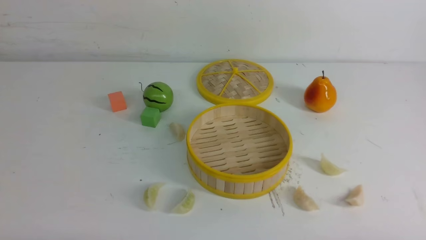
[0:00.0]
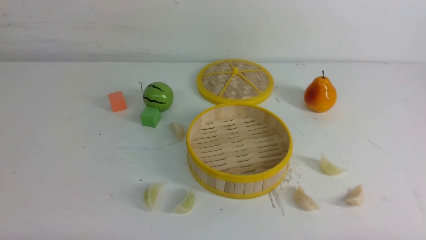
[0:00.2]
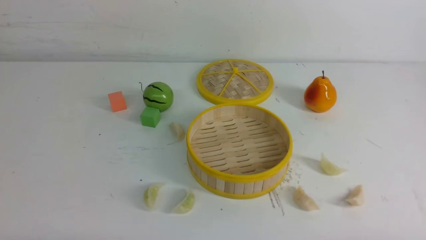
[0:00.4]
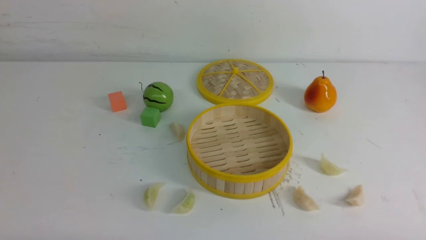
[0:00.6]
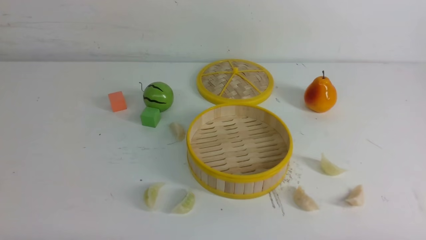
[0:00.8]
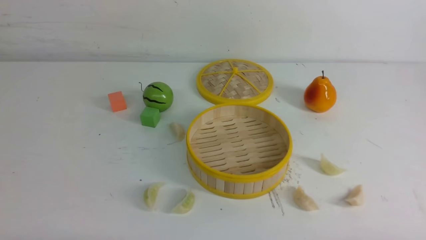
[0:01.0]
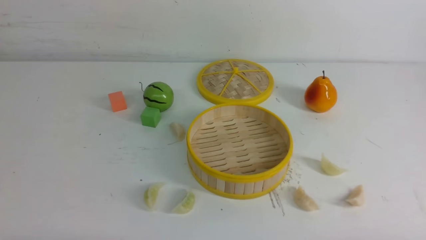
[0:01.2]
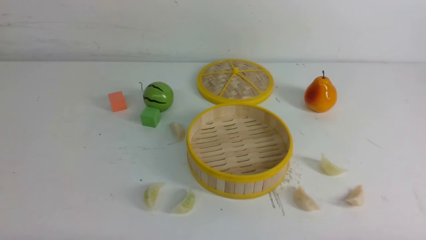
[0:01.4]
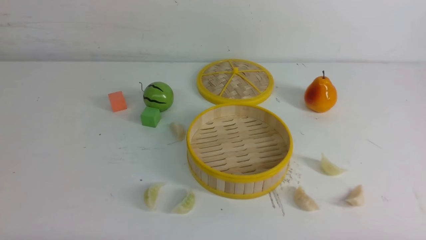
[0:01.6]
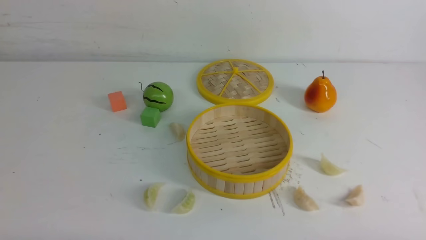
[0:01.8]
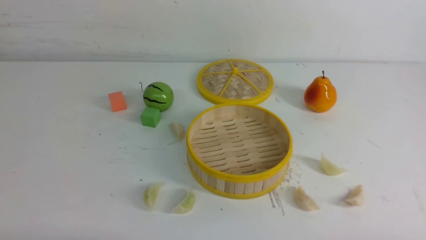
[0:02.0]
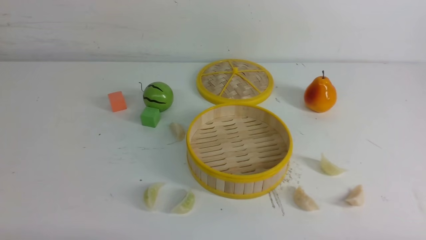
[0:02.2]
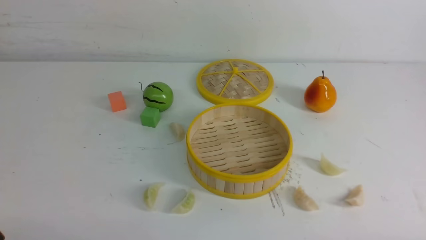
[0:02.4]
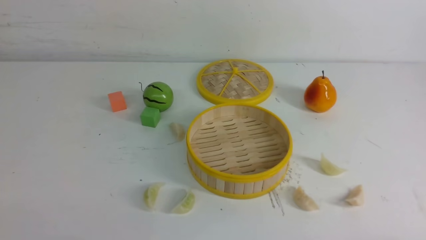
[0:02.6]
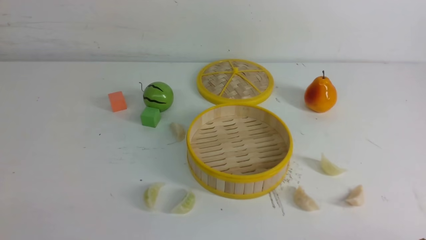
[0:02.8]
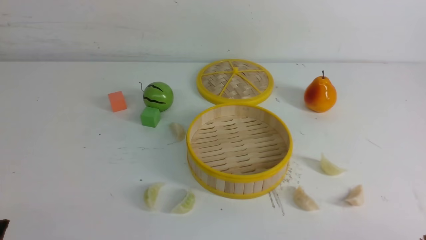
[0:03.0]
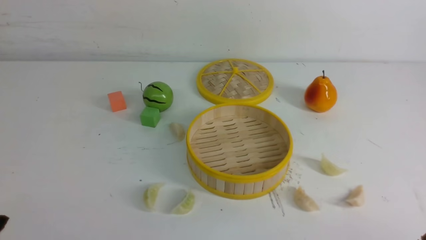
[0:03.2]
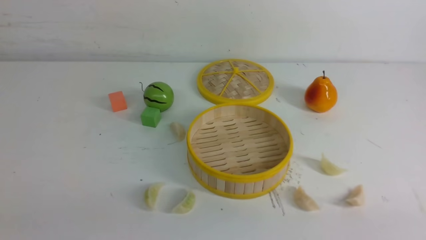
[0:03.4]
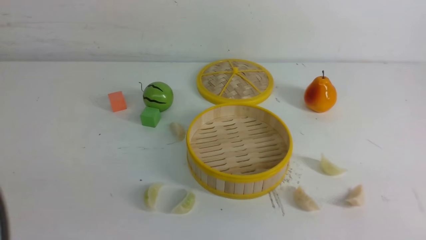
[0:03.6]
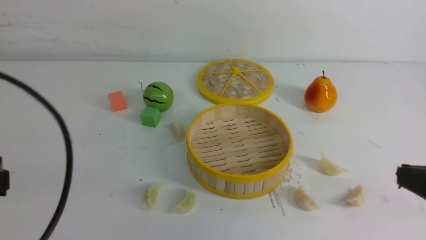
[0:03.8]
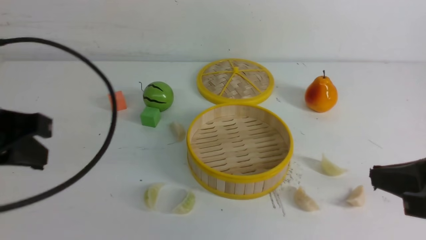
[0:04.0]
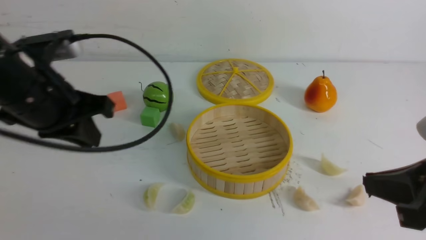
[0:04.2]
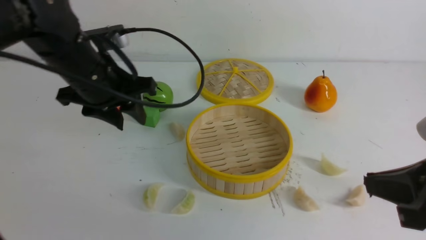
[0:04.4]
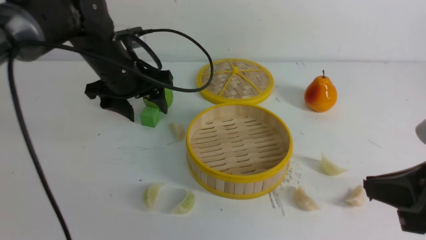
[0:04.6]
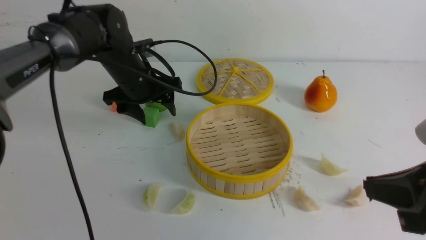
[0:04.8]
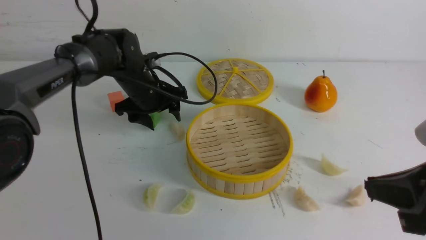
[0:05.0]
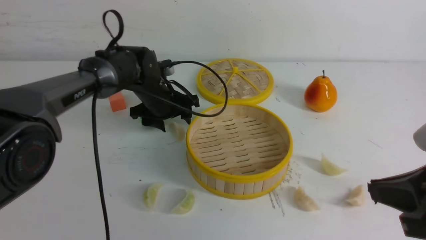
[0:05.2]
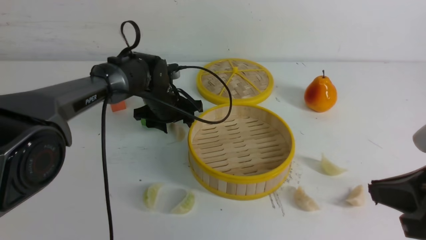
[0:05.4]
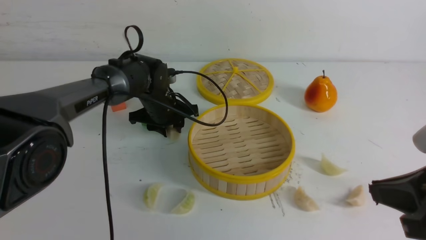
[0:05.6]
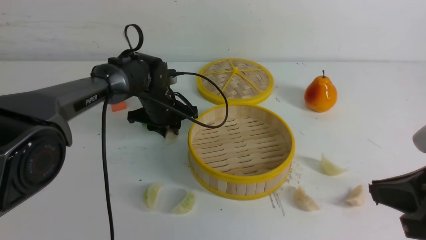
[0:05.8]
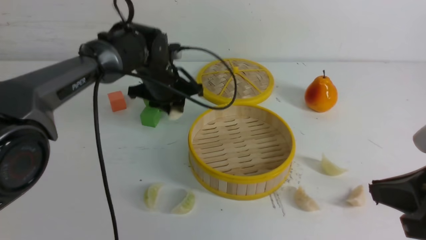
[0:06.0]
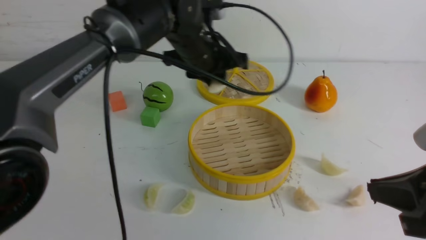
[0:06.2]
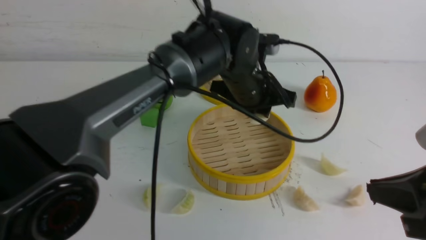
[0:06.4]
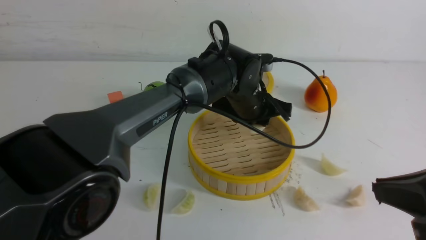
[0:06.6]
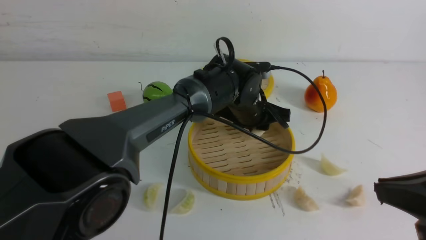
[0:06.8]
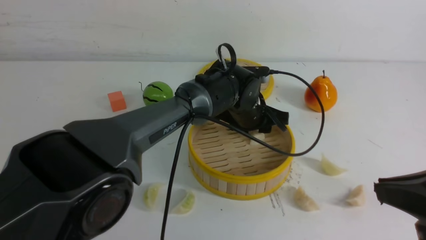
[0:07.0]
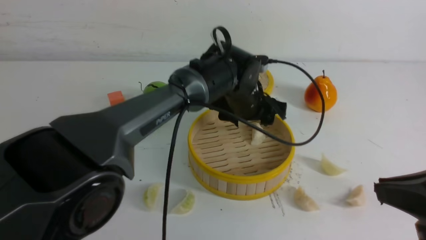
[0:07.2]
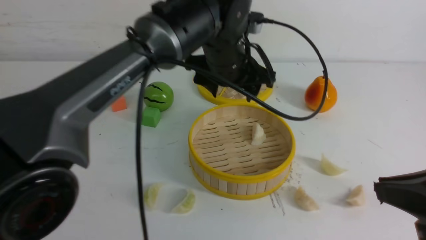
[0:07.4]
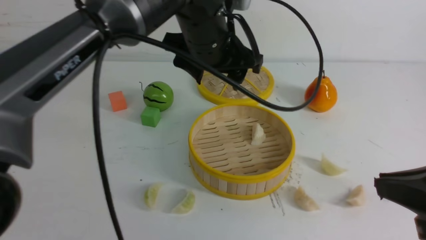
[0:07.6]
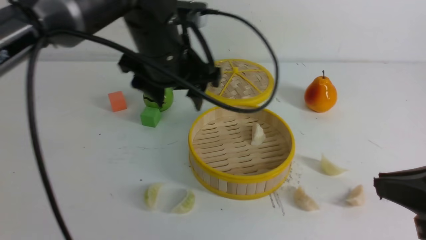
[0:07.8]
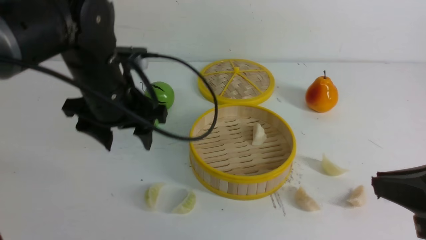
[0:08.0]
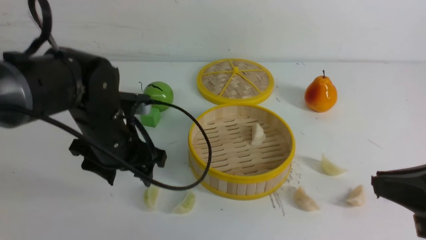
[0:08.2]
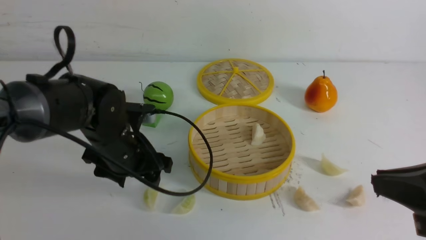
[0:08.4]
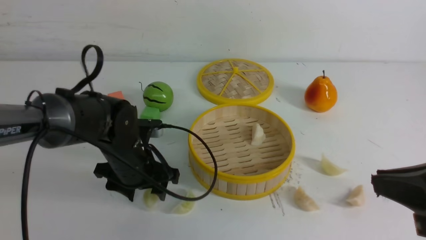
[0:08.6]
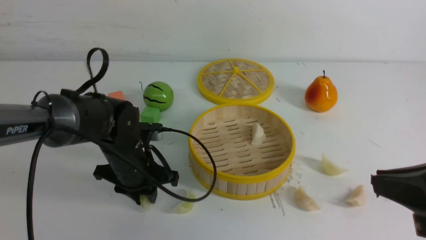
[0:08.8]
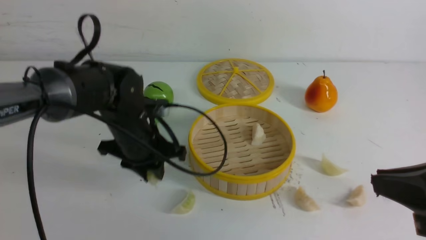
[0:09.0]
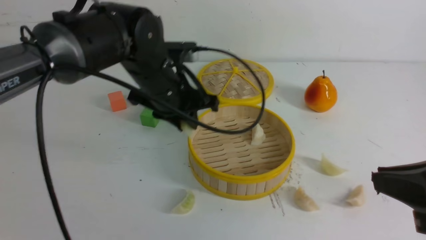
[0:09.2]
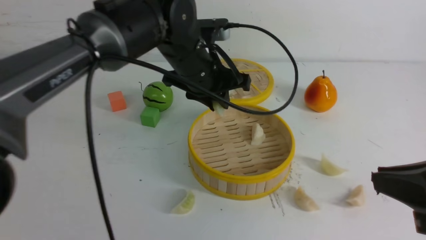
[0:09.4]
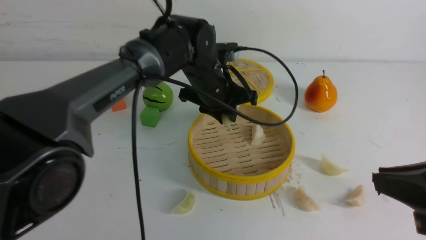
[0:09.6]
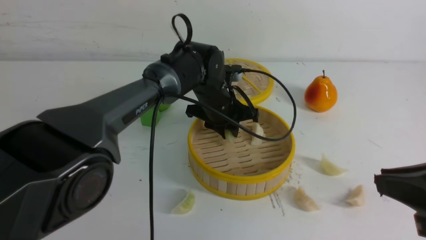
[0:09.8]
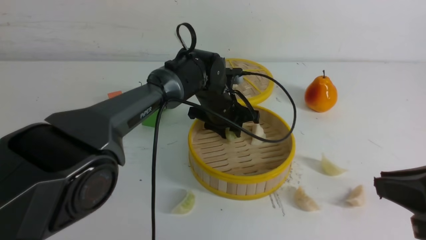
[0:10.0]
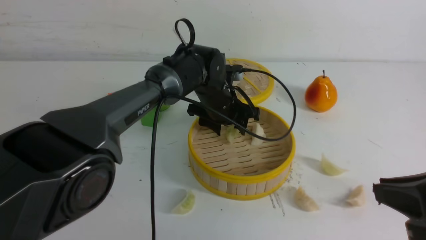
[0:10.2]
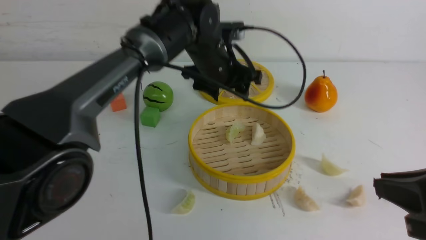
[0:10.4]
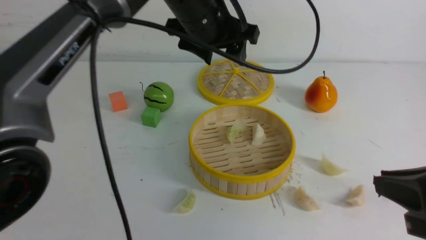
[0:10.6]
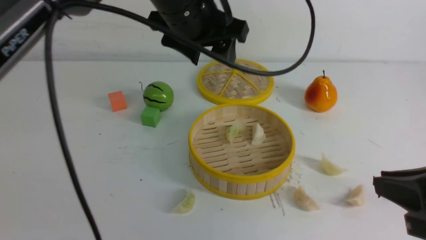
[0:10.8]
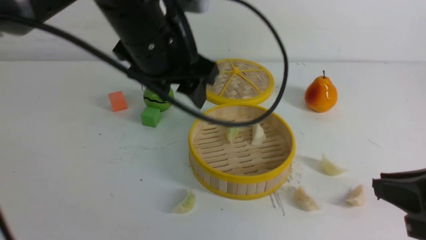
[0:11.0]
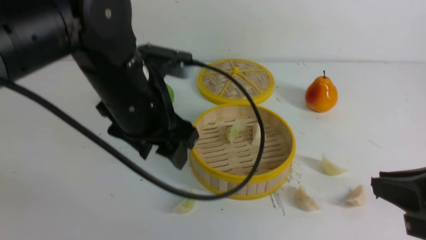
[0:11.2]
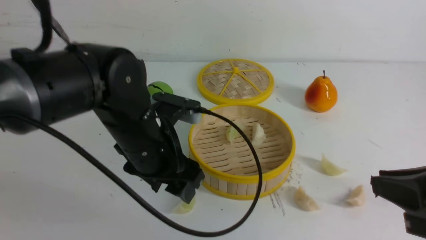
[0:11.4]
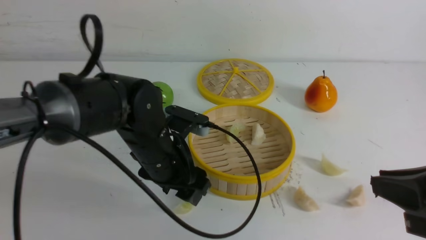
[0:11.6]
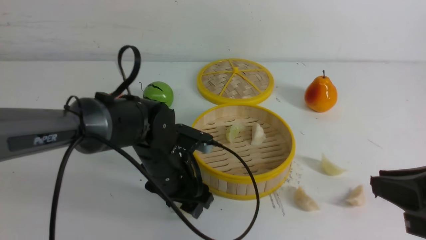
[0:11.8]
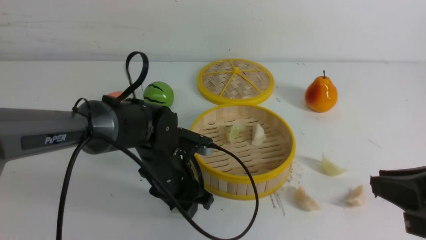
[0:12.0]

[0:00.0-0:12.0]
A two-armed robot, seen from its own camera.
Task of the whole recording: put the dumplings into the steamer on the white table.
Step, 0:00.0 to 0:05.8: use the left arm to grab a dumpling.
Step, 0:06.0 to 0:07.0: use the left arm to put the dumpling into the steamer.
Step, 0:07.2 to 0:08.8: use the left arm to grab a dumpling.
Step, 0:09.0 to 0:10.0: use the left arm to put the dumpling into the steamer.
0:00.0 to 0:01.6: The two grippers keep their place.
0:03.0 to 0:04.4: The left gripper moves forward, approximately 30 cm, and closes, then reopens; the right gripper is displaced upward and forward by some 15 cm, and closes its fingers.
0:04.4 to 0:06.0: The left gripper shifts some 15 cm forward, to the right and downward, and opens, then closes again.
0:06.0 to 0:07.6: The left gripper moves up and down over roughly 15 cm, changing direction 2 times, and opens up.
0:07.6 to 0:09.0: The left gripper shifts approximately 15 cm downward and to the left, and closes up.
0:09.0 to 0:10.4: The left gripper heads to the right, upward and forward, covering some 15 cm, and opens its fingers.
0:10.4 to 0:12.0: The left gripper moves downward, backward and to the left, roughly 20 cm.

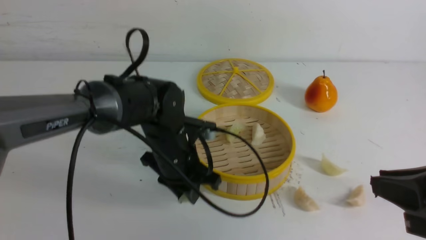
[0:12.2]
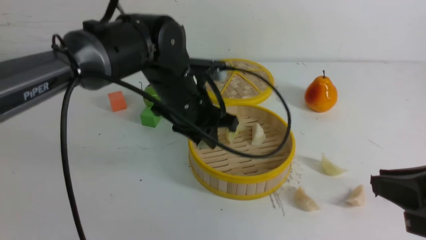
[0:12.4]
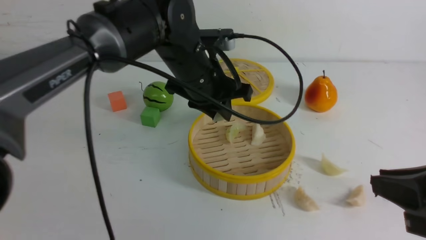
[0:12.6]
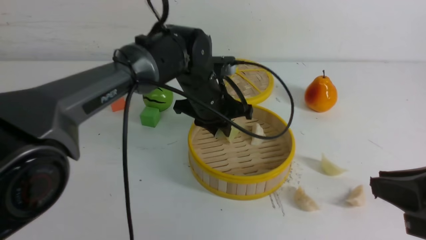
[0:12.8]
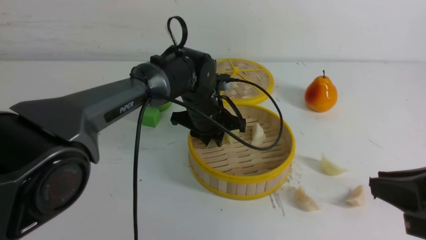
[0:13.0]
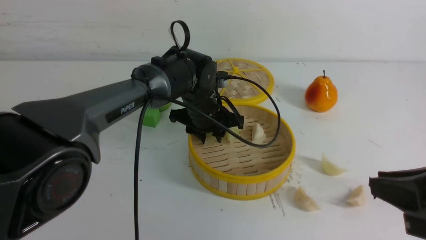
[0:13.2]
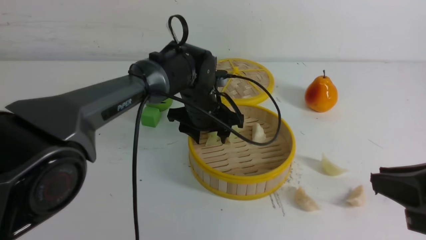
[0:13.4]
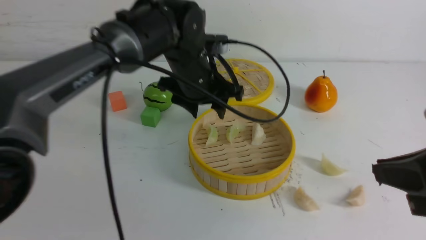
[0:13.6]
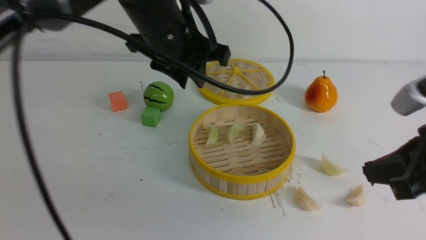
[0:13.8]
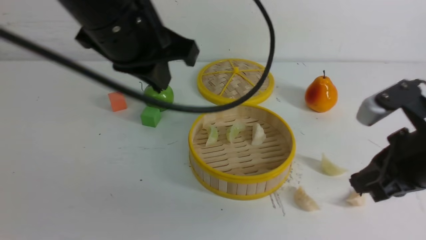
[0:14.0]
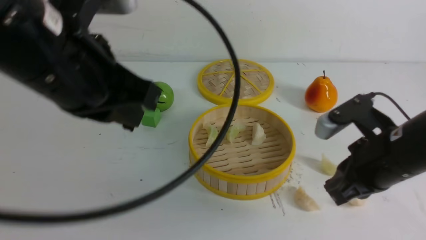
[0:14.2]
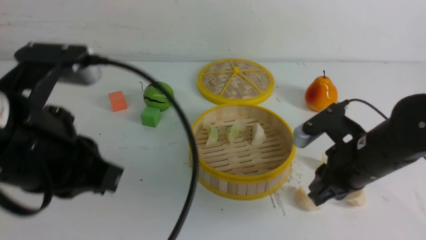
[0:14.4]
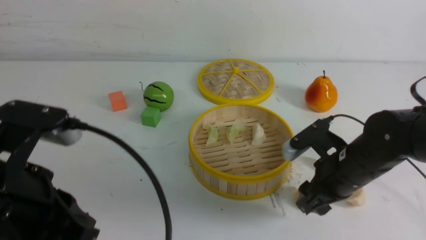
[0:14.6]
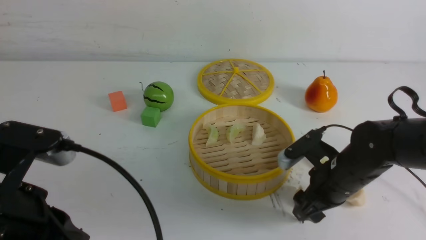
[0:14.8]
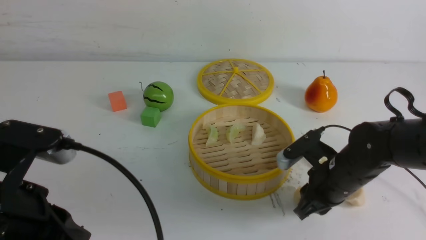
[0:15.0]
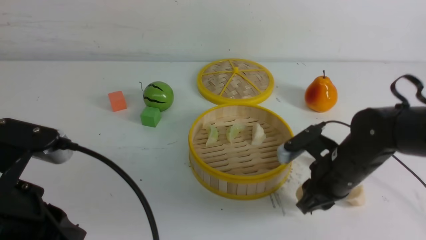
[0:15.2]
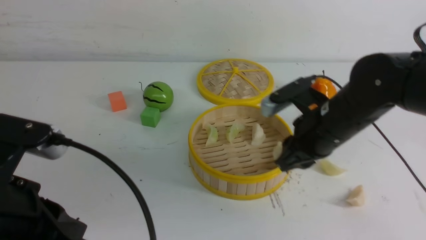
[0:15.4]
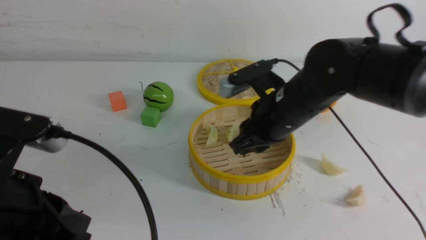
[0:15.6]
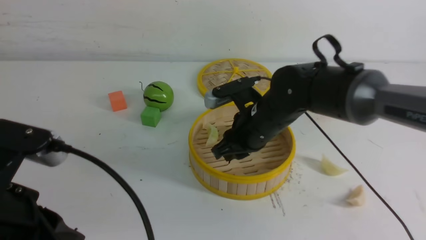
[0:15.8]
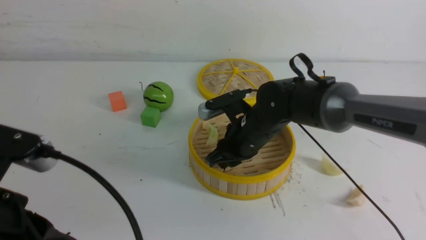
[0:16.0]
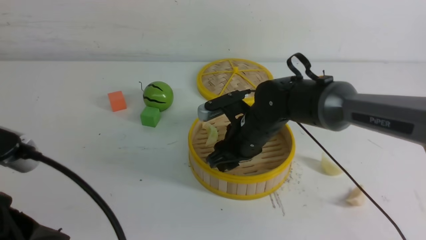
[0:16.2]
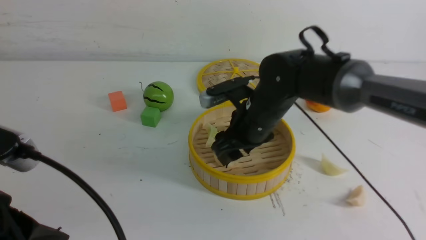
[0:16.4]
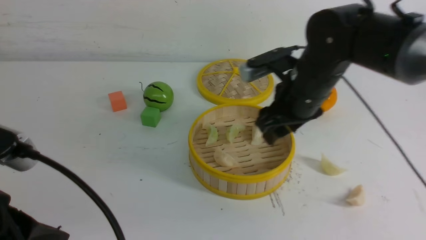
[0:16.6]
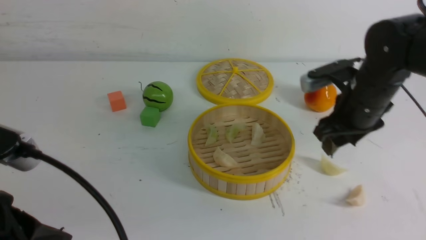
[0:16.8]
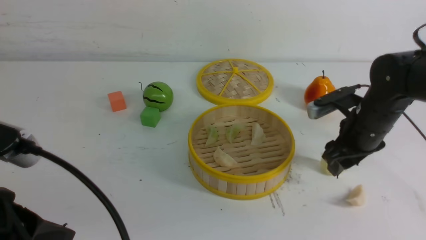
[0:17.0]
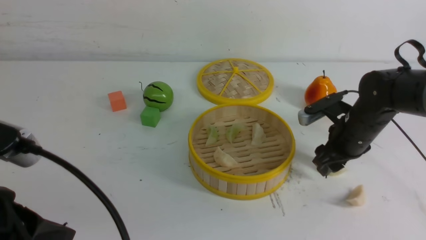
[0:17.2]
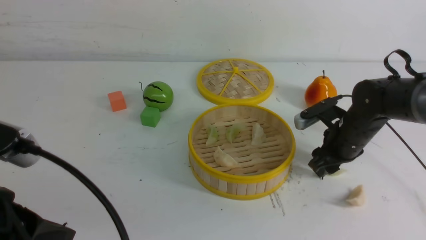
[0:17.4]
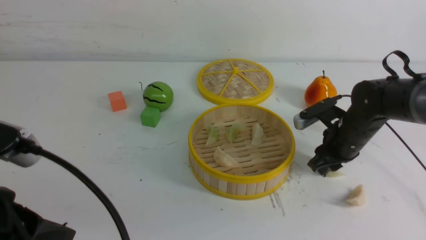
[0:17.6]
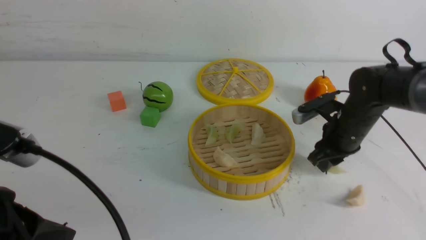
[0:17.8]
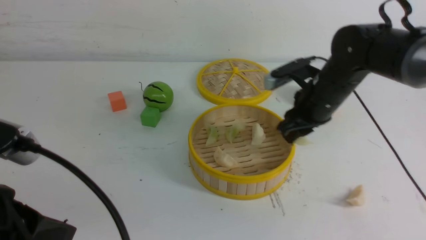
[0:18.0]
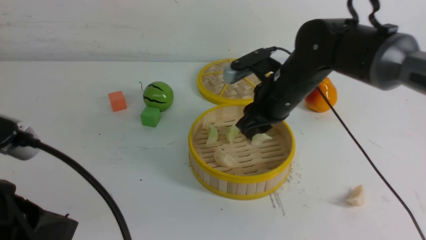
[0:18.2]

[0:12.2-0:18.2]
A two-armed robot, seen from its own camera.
Task of the whole recording: put the dumplings into the steamer on the white table.
Step, 0:12.2 to 0:13.4: use the left arm to put the dumpling into the steamer.
Step, 0:13.6 to 0:15.0: use the right arm to grab a dumpling.
Step, 0:15.4 to 0:16.2: use the right arm to put the dumpling into the steamer.
Step, 0:16.4 to 0:17.6: use the right arm to grab a dumpling.
0:12.2 to 0:13.8: The right gripper heads forward, covering some 5 cm. The left gripper moves up and down over about 20 cm, changing direction 2 times, and opens and closes again.
0:13.8 to 0:15.2: The left gripper heads backward and to the left, covering some 25 cm, and closes. The right gripper shifts roughly 20 cm downward, forward and to the left, and opens, then closes once more.
0:15.2 to 0:16.6: The right gripper heads upward and forward, covering approximately 10 cm, reaches about 10 cm to the left, then returns, and opens.
0:16.6 to 0:18.2: The right gripper moves some 10 cm to the right and comes back, and closes.
